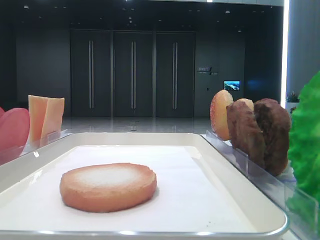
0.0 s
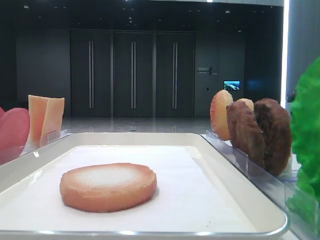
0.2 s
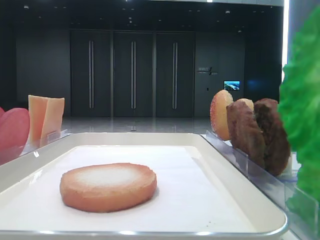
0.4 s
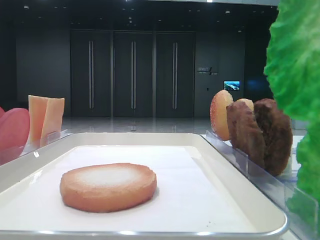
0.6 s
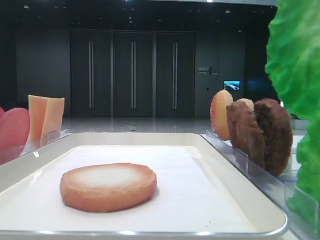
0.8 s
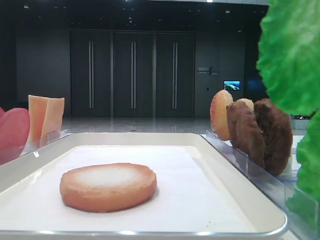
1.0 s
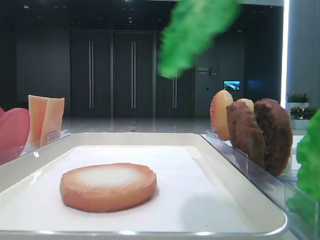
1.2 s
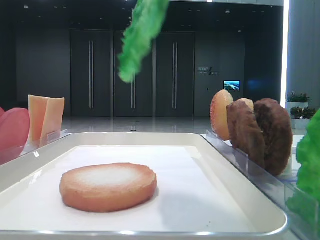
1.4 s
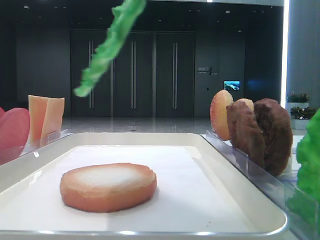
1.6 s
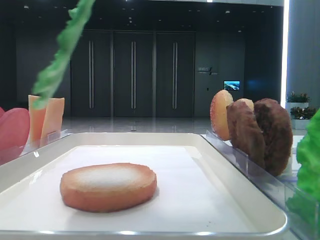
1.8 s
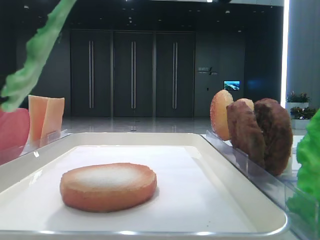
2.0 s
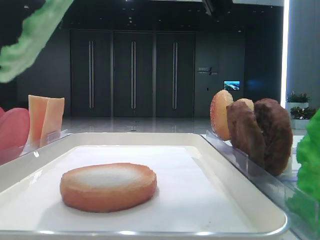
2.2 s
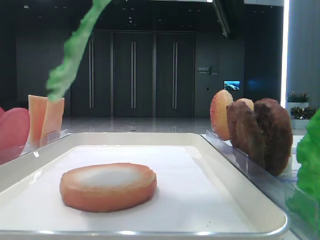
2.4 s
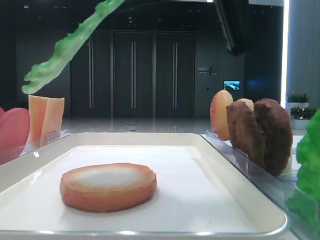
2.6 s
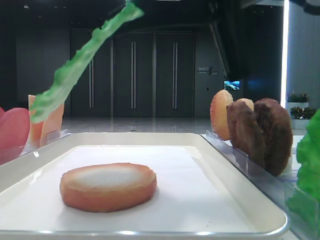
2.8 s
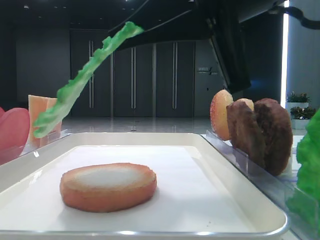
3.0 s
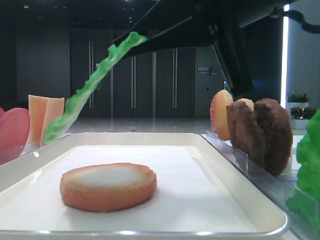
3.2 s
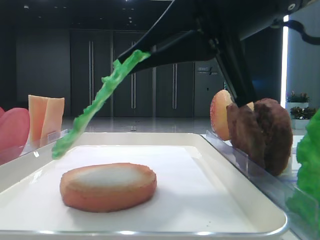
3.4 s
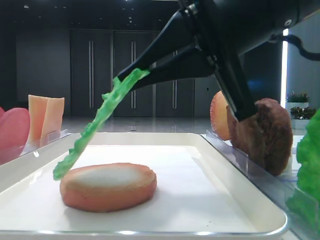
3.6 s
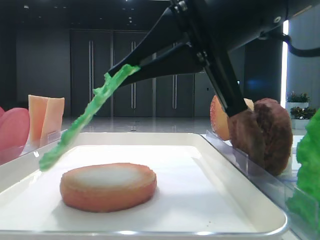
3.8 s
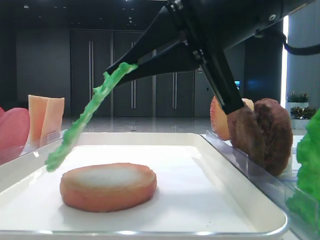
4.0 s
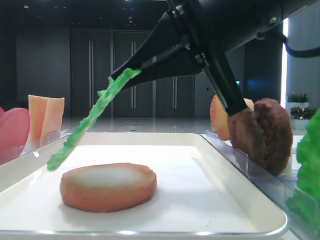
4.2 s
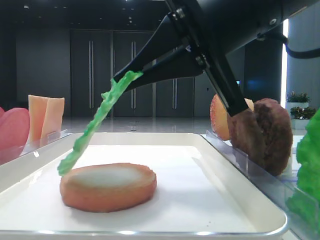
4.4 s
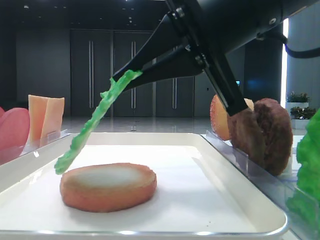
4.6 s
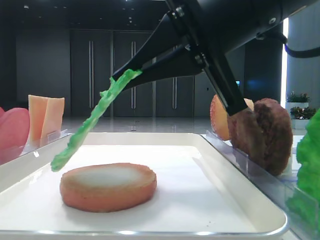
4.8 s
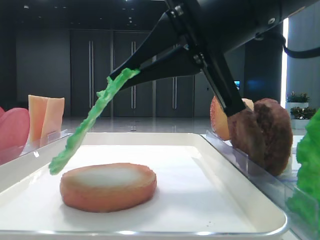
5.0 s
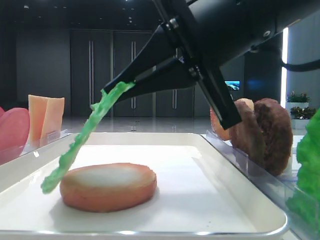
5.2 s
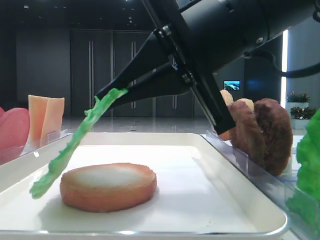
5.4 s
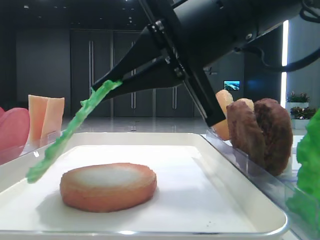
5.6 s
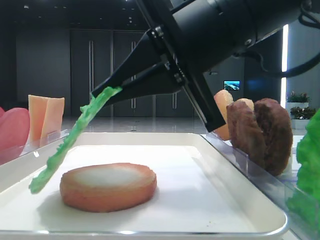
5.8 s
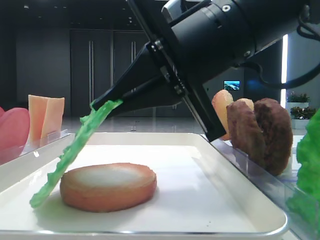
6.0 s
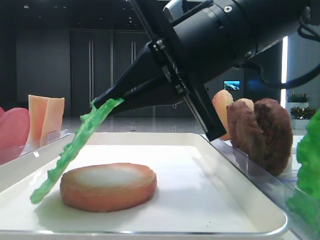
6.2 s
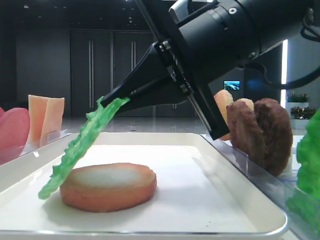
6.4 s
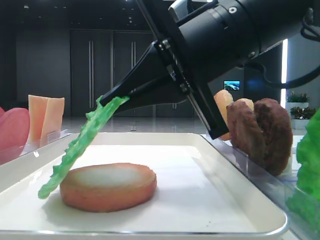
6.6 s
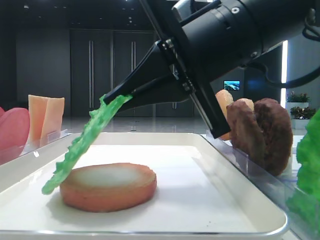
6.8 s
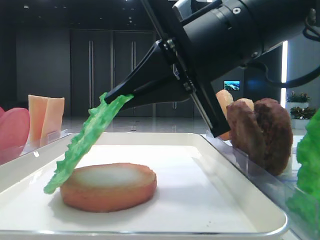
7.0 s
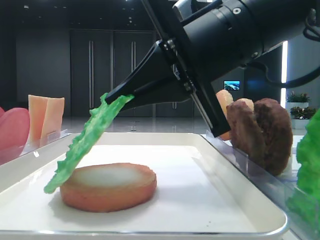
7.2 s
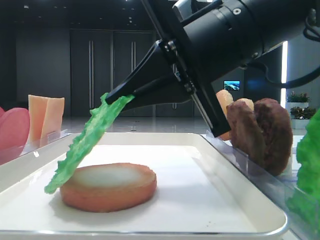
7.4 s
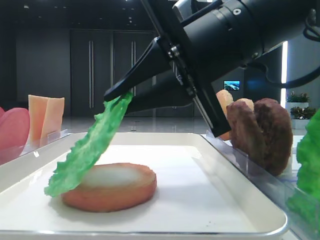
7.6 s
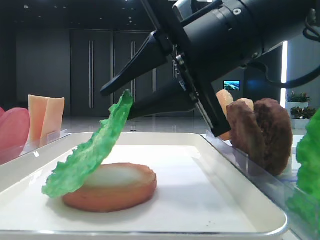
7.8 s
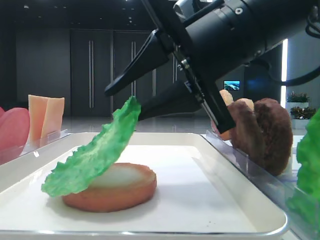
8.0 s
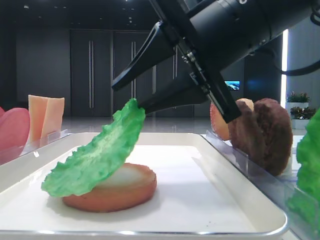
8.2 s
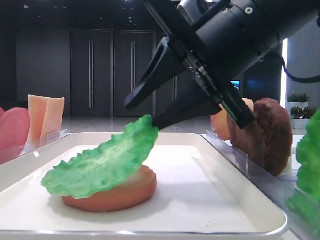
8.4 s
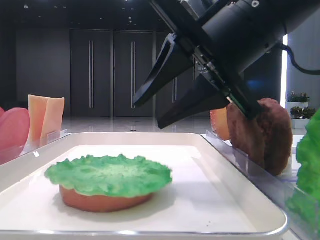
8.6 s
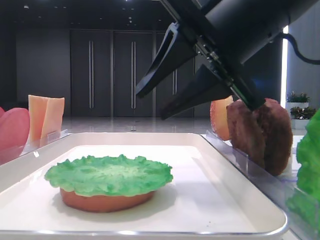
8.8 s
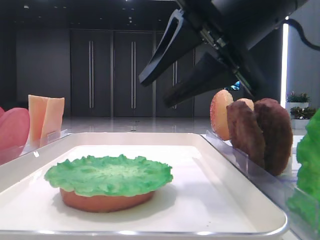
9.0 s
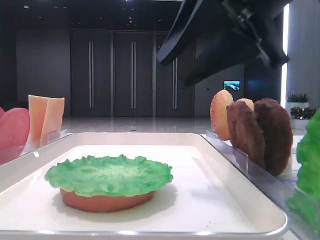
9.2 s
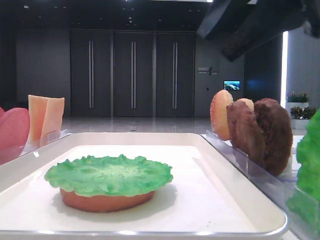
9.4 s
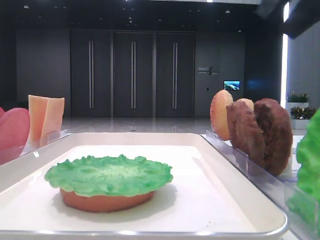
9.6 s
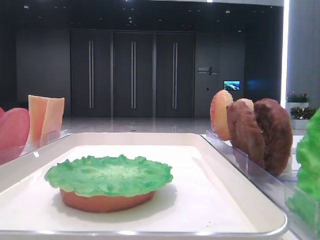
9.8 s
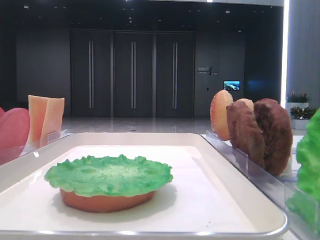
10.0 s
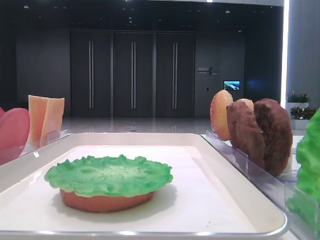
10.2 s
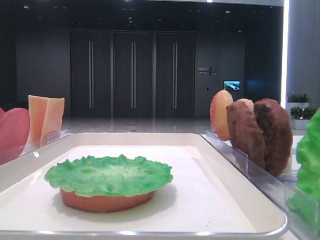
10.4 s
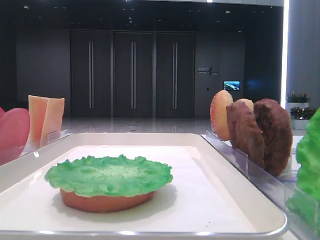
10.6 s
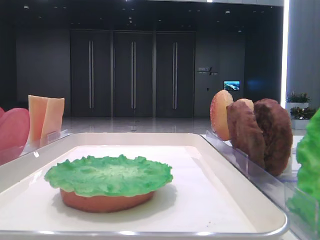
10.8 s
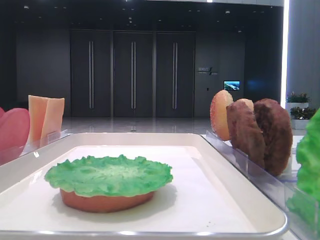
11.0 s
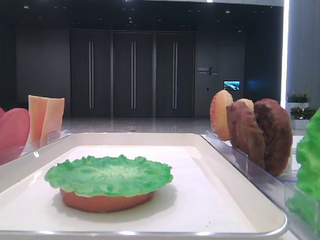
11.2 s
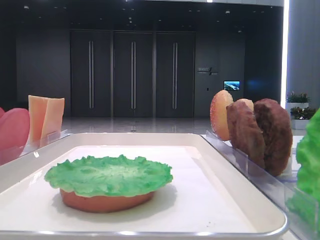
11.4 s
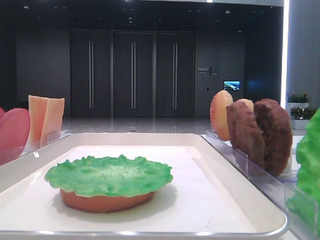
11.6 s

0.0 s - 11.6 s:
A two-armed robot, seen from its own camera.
Step, 0.0 s - 8.4 s: Place the lettuce leaf on the bottom bread with the right hand.
0.0 s - 1.4 s: The right gripper is displaced upward and to the left by approximately 10 cm.
1.4 s - 2.8 s: The right gripper is displaced downward and forward by approximately 10 cm.
2.8 s - 5.8 s: The grippers stay close to where they were, moving slightly.
5.8 s - 7.2 s: The grippers make only small movements.
7.2 s - 8.8 s: The right gripper opens up.
8.8 s - 10.2 s: The right gripper travels to the right, upward and backward by roughly 25 cm.

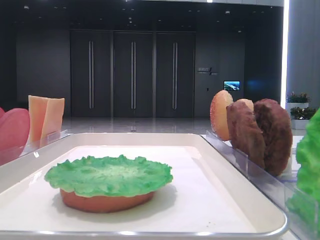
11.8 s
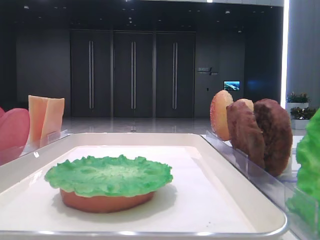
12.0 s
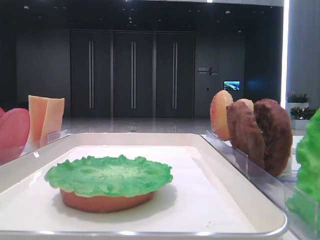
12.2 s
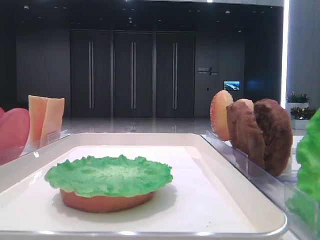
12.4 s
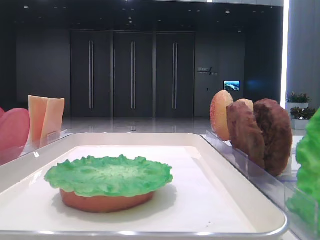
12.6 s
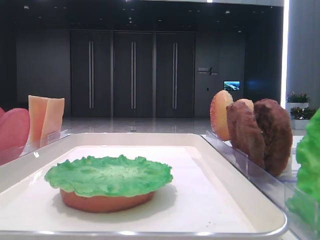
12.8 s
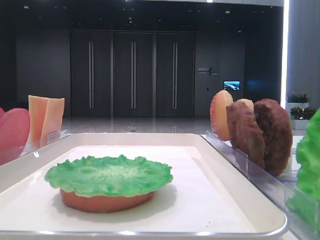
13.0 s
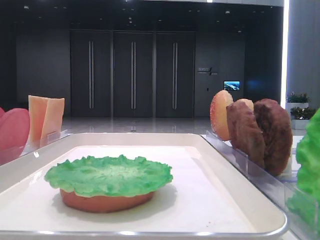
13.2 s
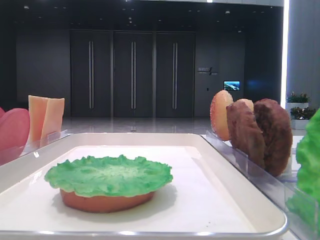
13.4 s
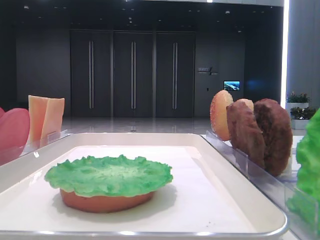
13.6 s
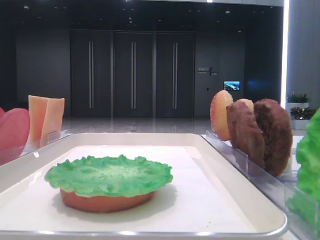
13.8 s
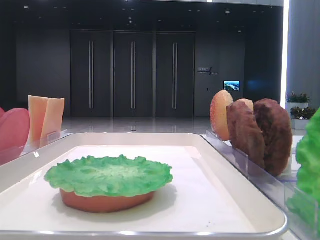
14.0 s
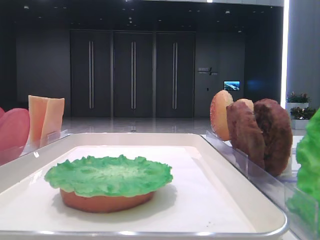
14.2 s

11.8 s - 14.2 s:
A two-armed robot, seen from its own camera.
13.0 s - 14.2 s: Neither gripper changes place.
